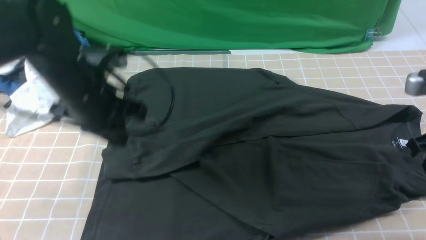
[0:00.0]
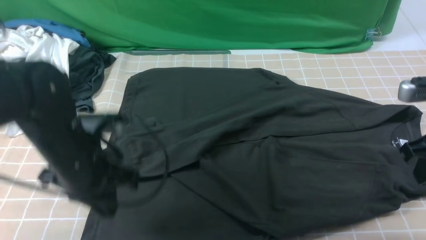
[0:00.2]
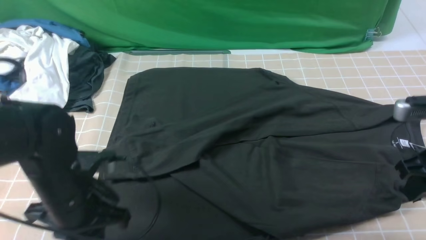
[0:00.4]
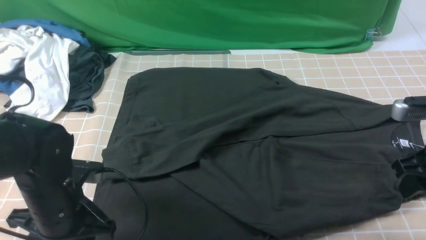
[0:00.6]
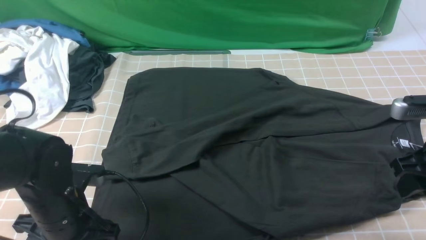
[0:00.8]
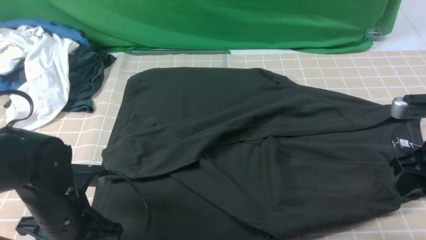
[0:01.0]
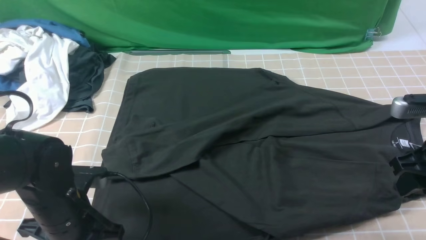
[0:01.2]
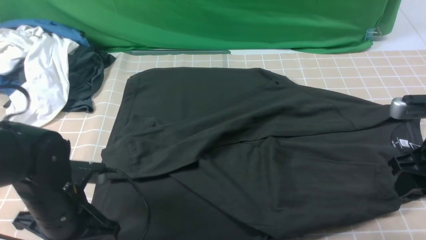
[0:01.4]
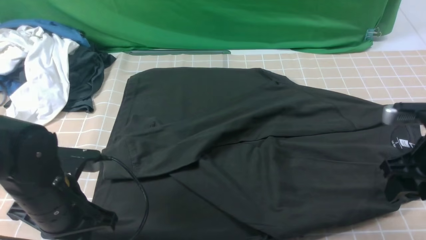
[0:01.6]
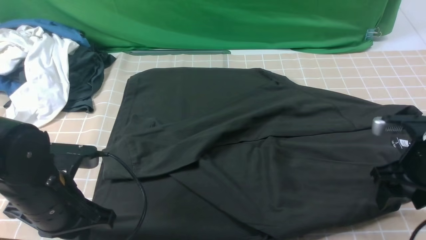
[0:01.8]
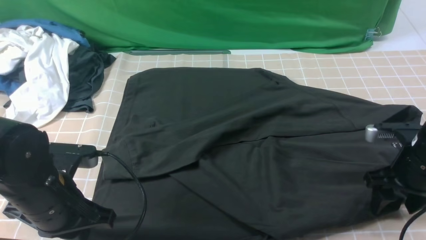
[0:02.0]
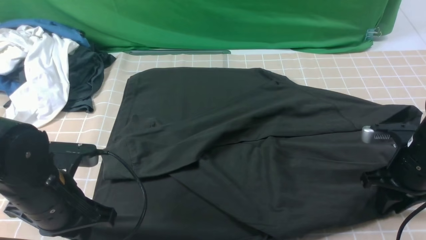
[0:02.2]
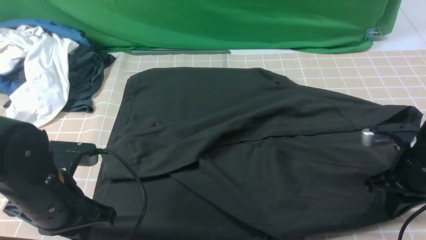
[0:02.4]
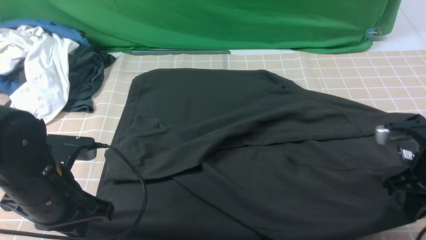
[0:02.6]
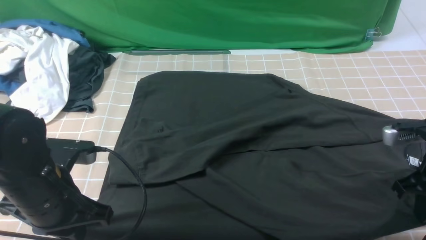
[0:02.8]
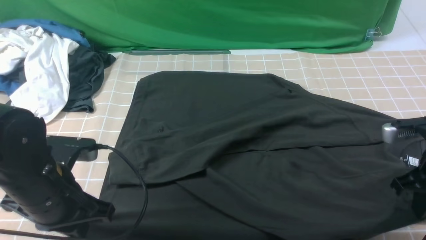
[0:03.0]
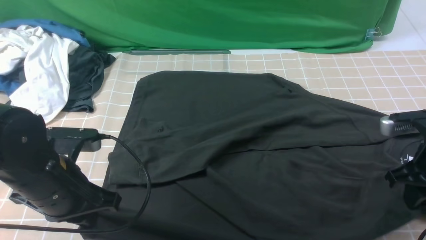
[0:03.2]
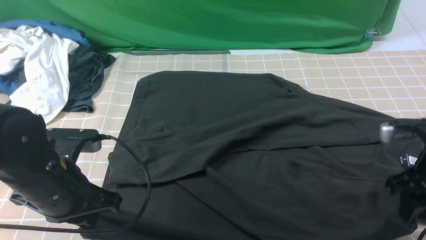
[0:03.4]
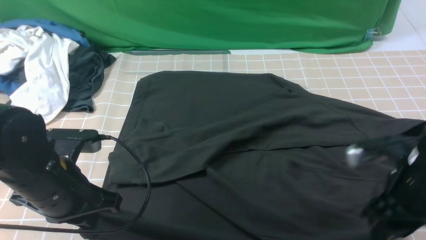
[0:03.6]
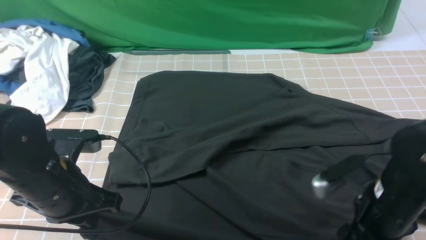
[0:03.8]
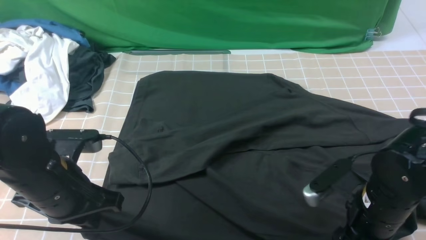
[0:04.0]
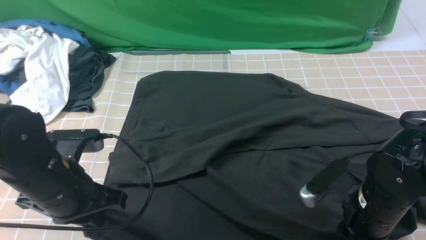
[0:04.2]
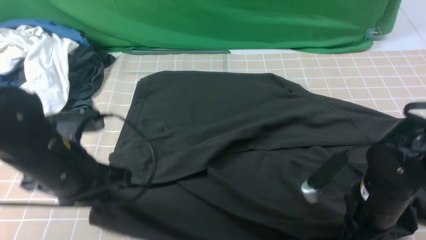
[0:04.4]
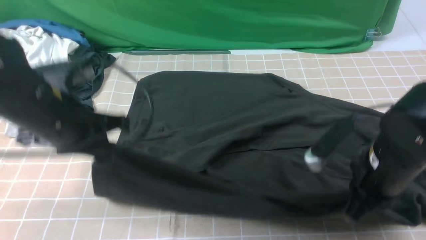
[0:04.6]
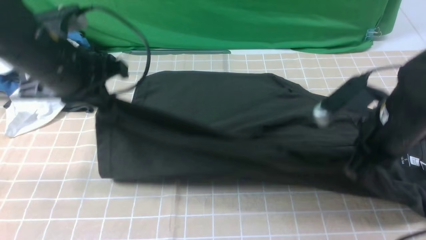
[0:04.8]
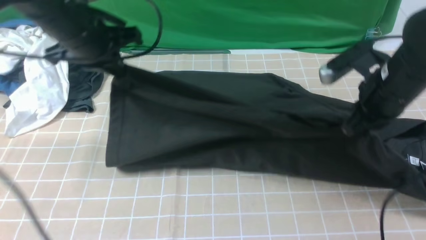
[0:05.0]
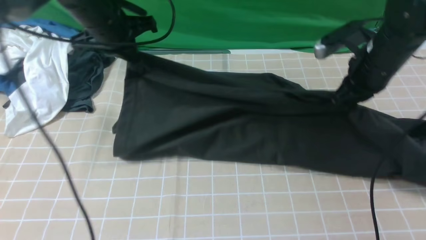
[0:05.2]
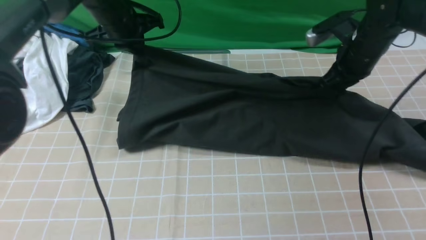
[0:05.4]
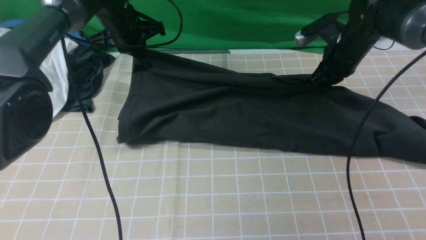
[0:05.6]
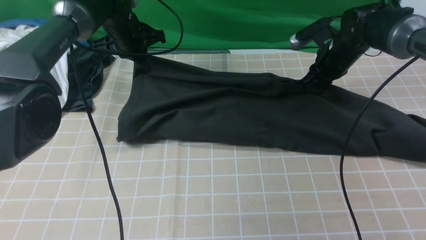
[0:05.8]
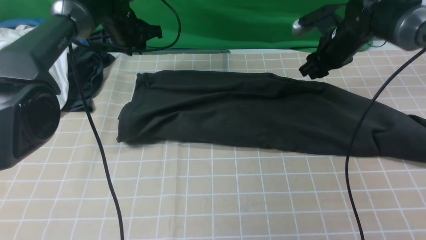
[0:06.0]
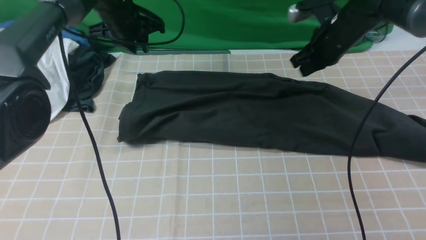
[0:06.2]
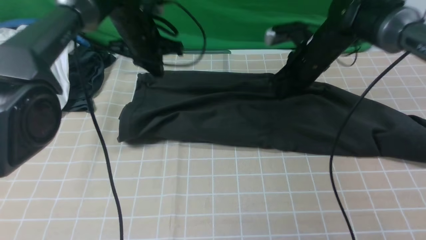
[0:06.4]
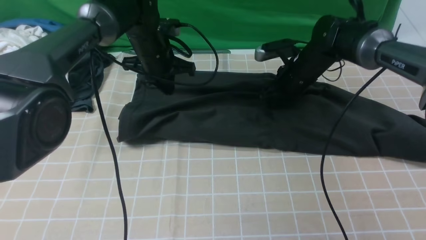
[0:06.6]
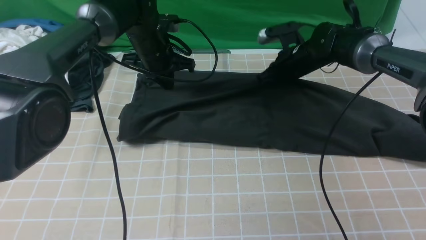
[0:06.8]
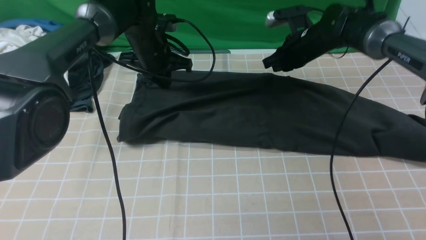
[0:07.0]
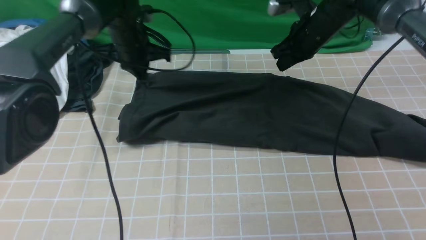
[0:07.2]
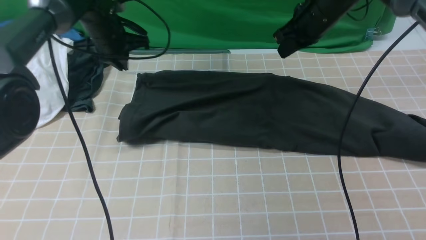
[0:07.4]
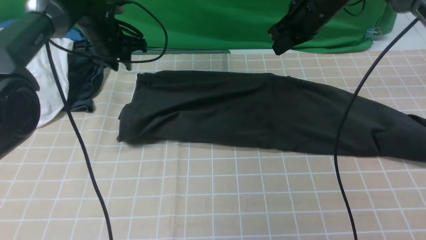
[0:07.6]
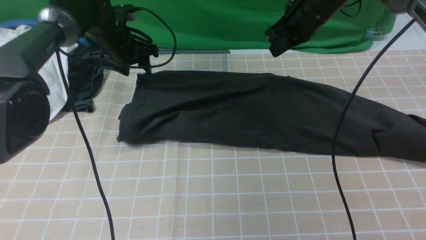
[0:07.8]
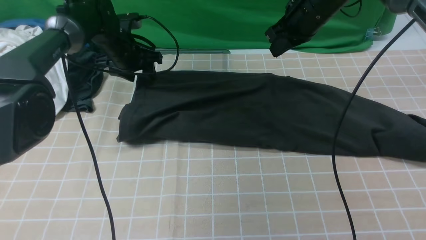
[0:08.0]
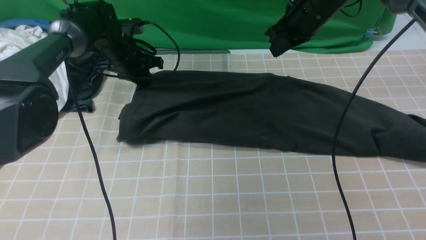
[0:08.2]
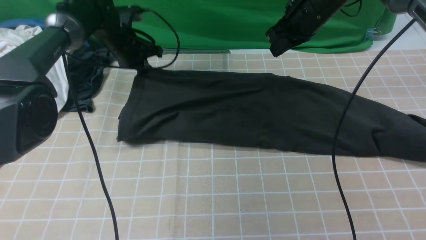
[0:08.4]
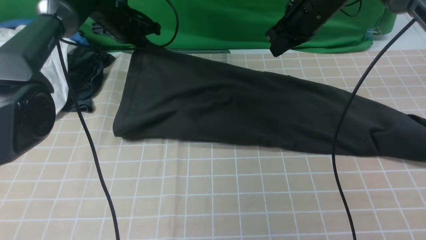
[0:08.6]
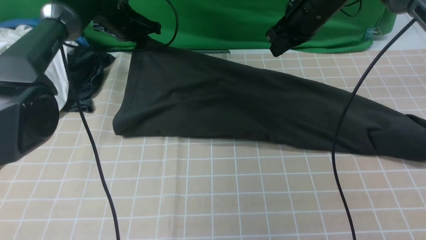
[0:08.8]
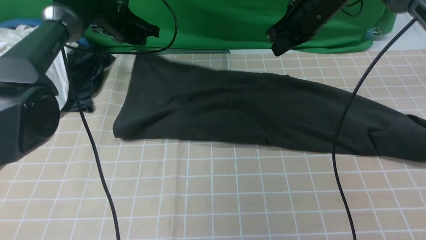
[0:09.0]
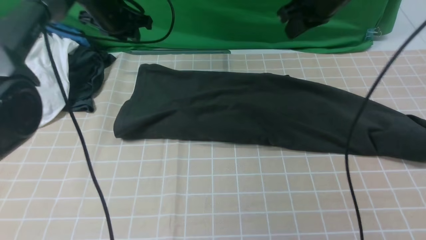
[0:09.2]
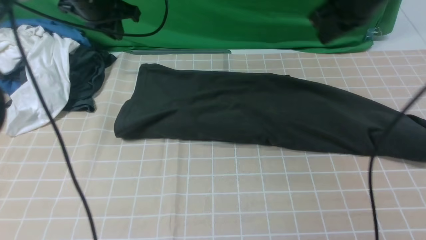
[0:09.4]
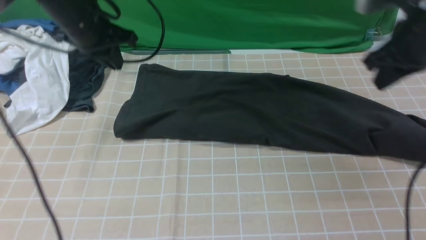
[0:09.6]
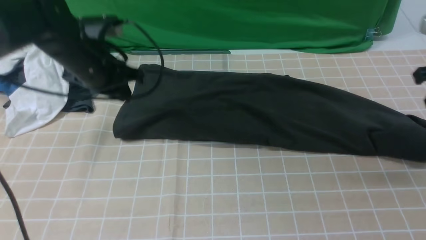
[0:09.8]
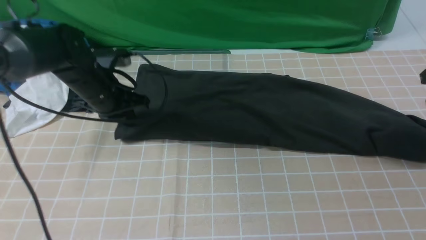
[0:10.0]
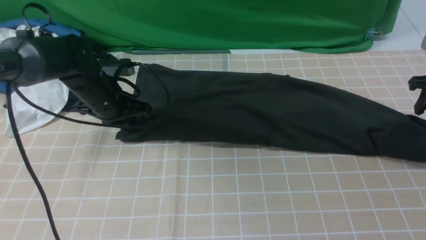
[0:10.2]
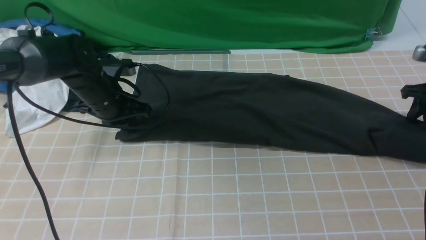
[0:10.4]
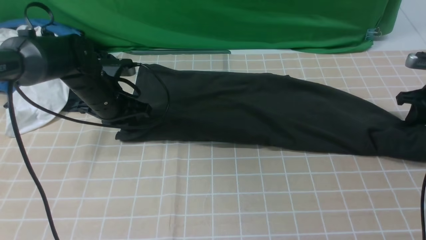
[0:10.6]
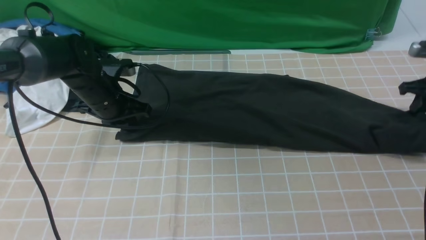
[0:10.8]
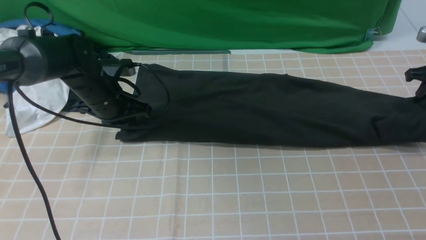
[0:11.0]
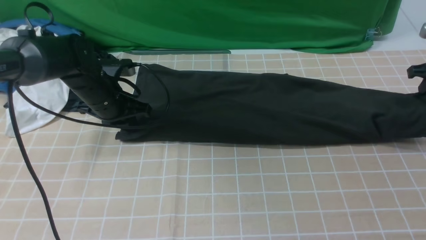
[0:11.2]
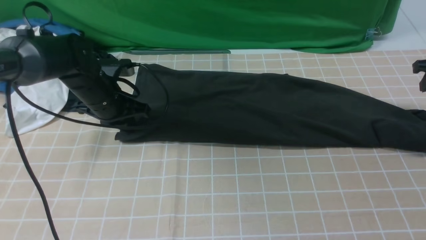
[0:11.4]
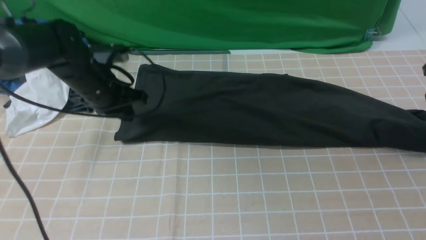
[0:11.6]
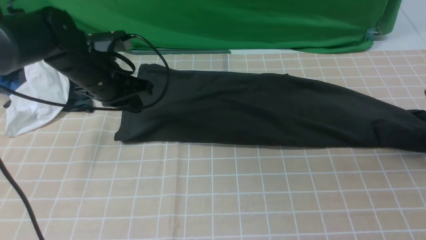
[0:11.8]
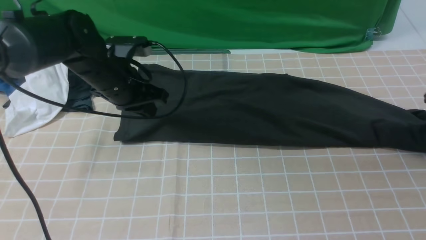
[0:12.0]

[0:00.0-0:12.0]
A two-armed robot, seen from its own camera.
Step, 0:00.0 to 0:04.0: use both arms simultaneously to clamp the lower edge of the clothing fabric.
Step, 0:04.4 to 0:06.0: use both arms to drag the lower edge of the fabric forward and fold it over the upper edge.
0:00.0 to 0:01.6: The left gripper shifts about 10 cm backward and downward, and opens, then closes again. The right gripper is displaced downward by roughly 5 cm, and opens up.
0:01.6 to 0:03.0: The right gripper closes.
0:03.0 to 0:04.4: The right gripper shifts about 10 cm to the left, and opens, then closes once more.
0:04.4 to 0:06.0: The grippers both shift forward by approximately 30 cm.
0:06.0 to 0:07.6: The right gripper travels upward and to the left by some 10 cm, and closes up.
0:07.6 to 0:09.0: There are only small adjustments of the grippers.
0:09.0 to 0:10.4: The right gripper shifts approximately 30 cm to the right and downward, and opens, while the left gripper goes approximately 15 cm backward and downward.
0:10.4 to 0:12.0: The left gripper moves upward, some 5 cm, while the right gripper closes, then opens again.

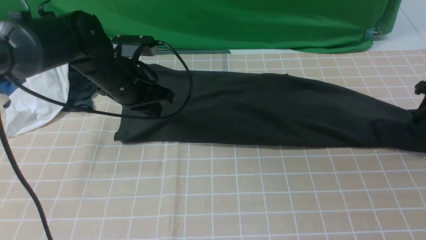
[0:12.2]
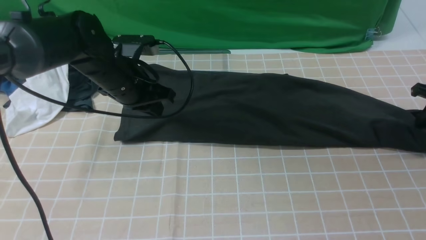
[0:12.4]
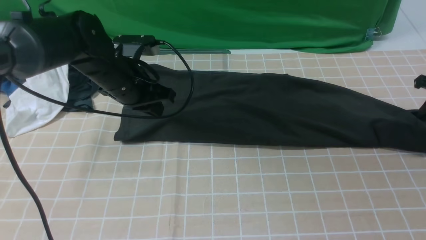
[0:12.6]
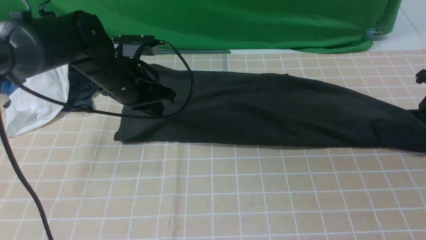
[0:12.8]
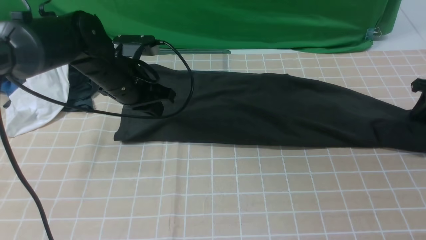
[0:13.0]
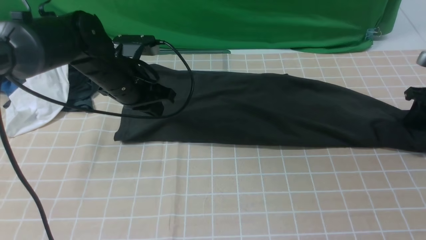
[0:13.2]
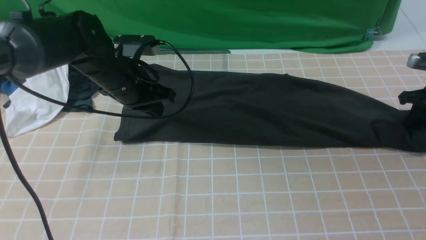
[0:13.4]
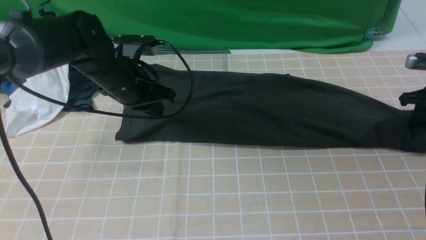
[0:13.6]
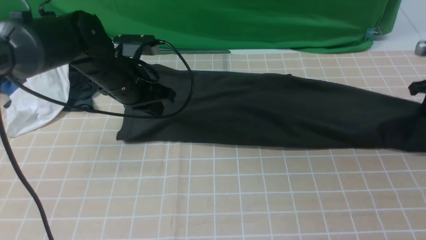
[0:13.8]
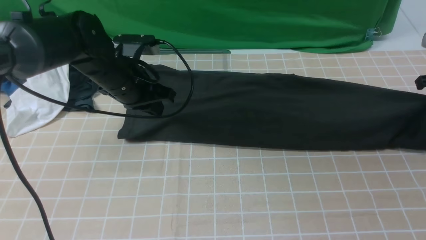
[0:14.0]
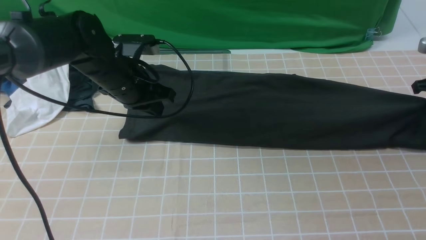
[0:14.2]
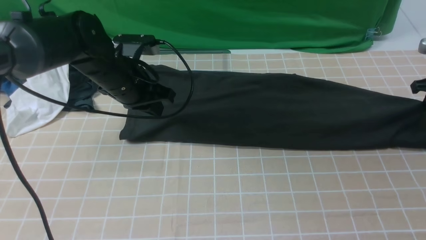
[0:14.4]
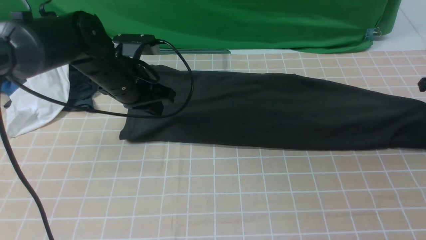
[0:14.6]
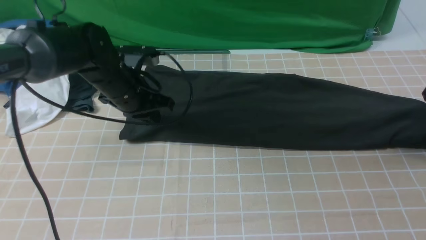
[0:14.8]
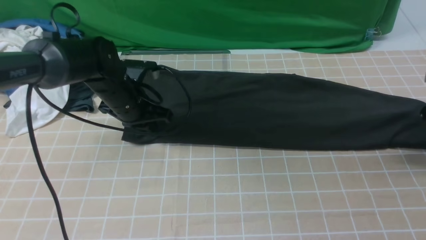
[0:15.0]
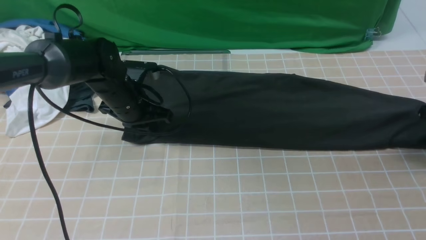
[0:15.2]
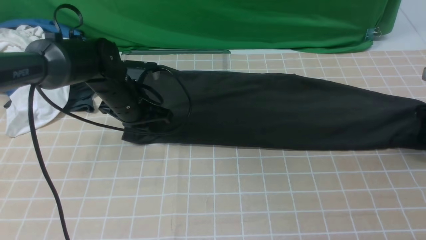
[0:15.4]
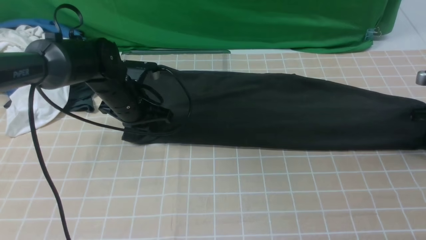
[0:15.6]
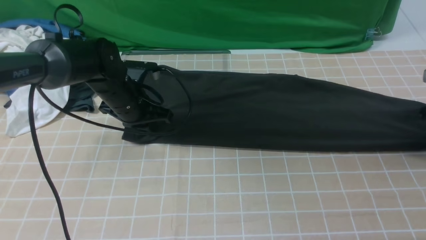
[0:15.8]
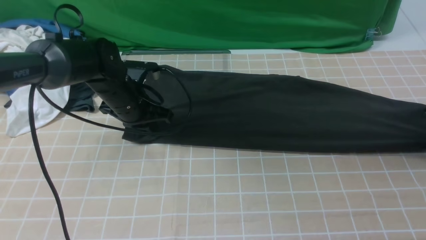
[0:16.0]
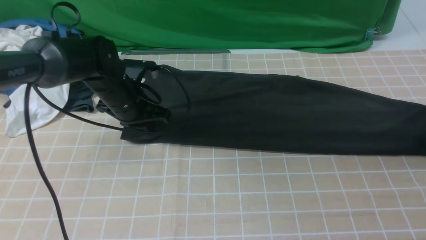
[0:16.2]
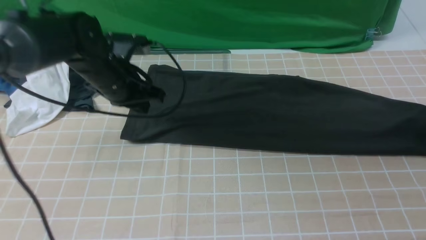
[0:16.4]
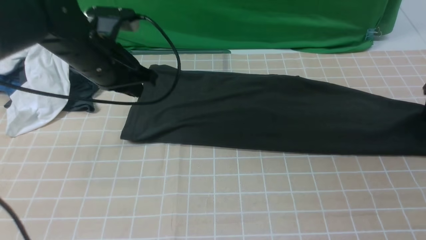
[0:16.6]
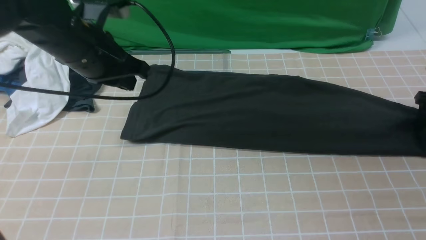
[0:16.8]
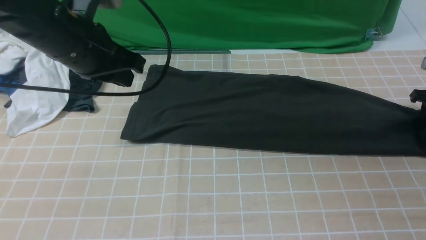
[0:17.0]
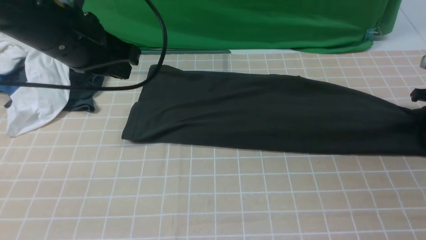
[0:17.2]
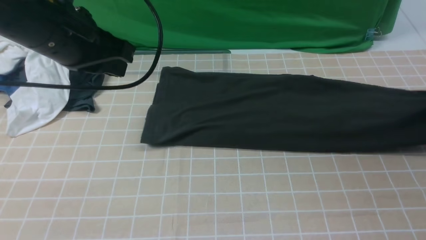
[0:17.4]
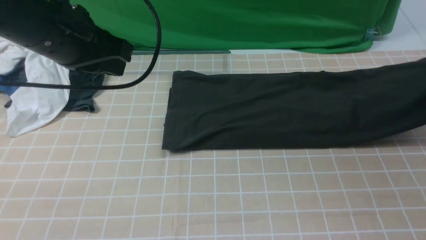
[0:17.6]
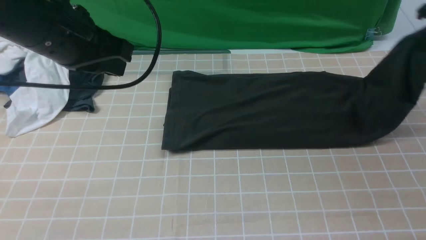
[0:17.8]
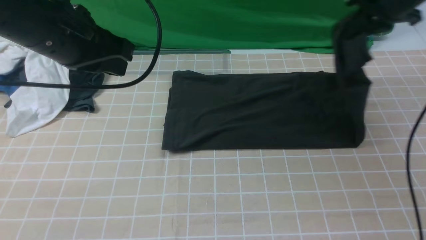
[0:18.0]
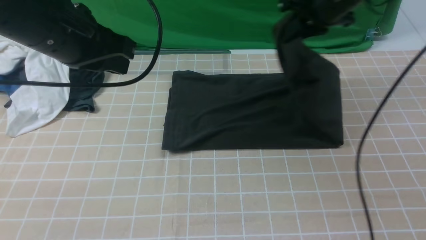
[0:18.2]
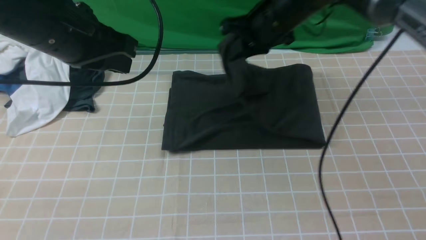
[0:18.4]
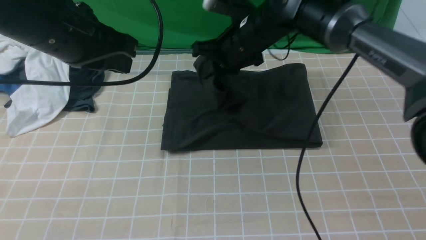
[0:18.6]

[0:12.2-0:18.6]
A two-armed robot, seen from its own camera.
Step, 0:12.2 to 0:17.2: use the right arm to clamp the right edge of the fabric.
0:12.2 to 0:13.8: The right gripper closes up.
0:13.8 to 0:15.4: The right gripper opens its fingers. The left gripper moves downward, approximately 5 cm.
0:15.4 to 0:17.0: The right gripper closes, then reopens. The left gripper travels upward and backward by some 20 cm.
0:17.0 to 0:18.6: The right gripper heads to the left, covering approximately 40 cm.
